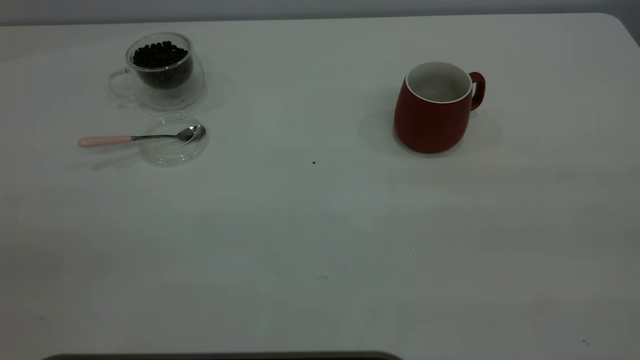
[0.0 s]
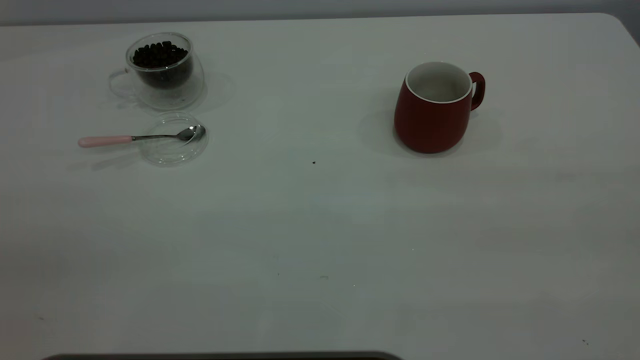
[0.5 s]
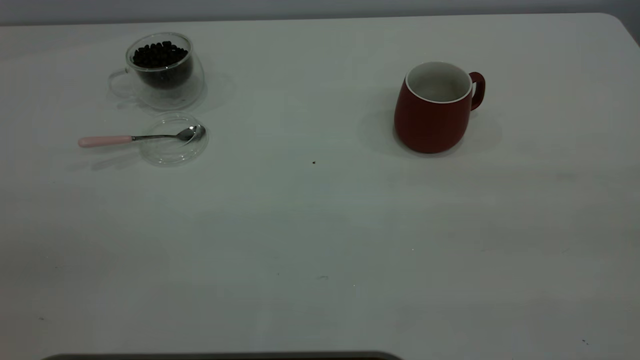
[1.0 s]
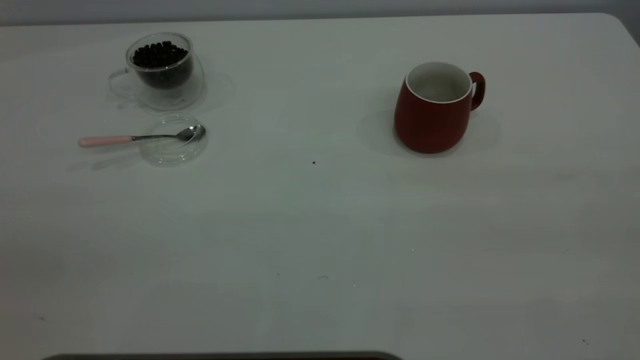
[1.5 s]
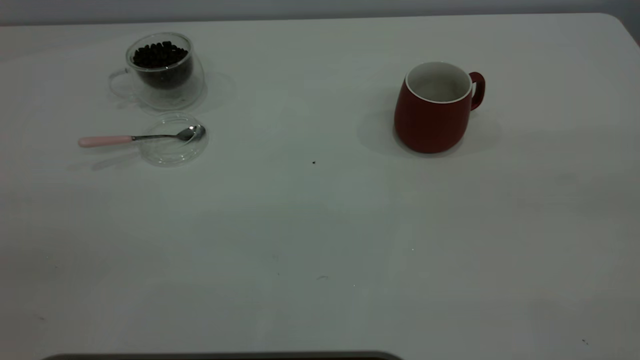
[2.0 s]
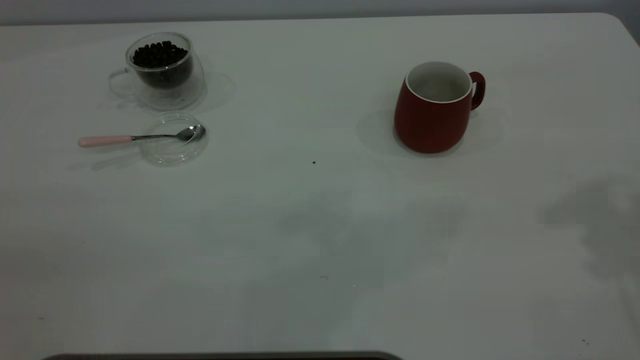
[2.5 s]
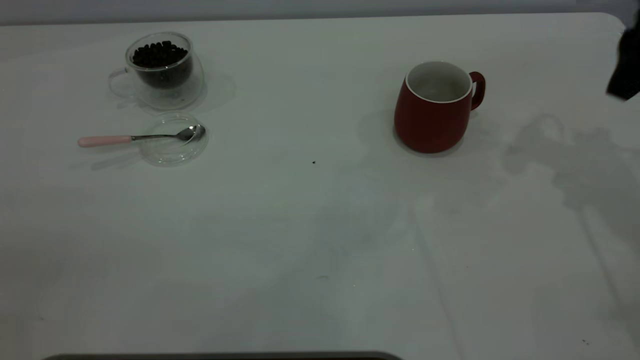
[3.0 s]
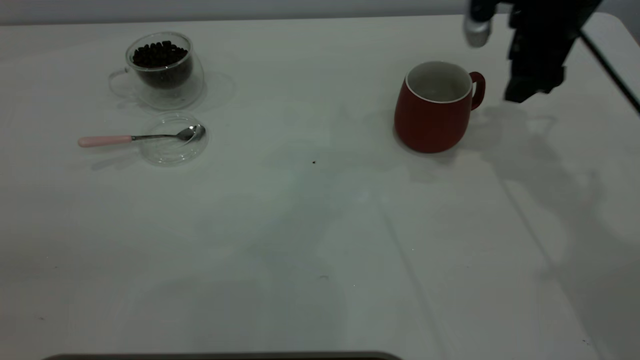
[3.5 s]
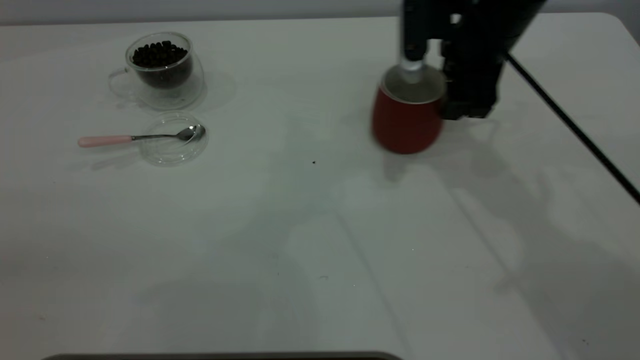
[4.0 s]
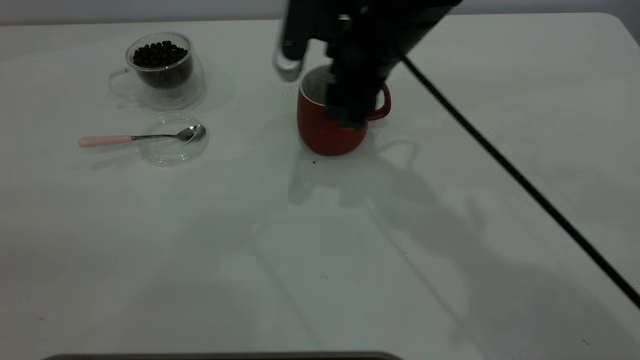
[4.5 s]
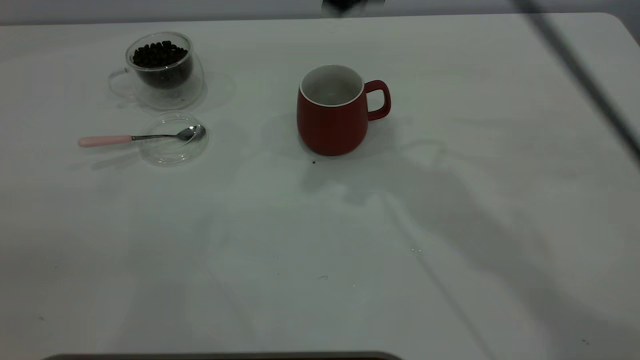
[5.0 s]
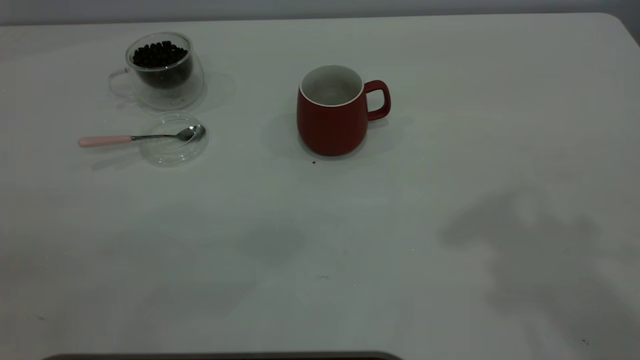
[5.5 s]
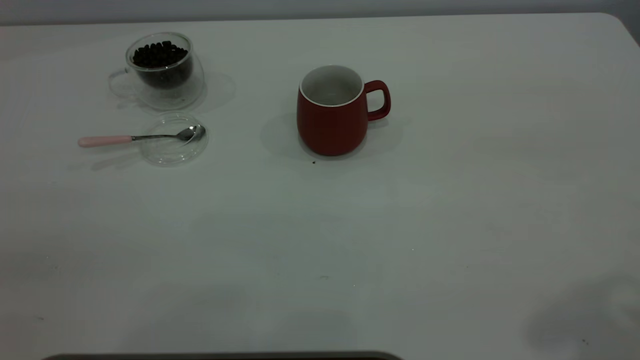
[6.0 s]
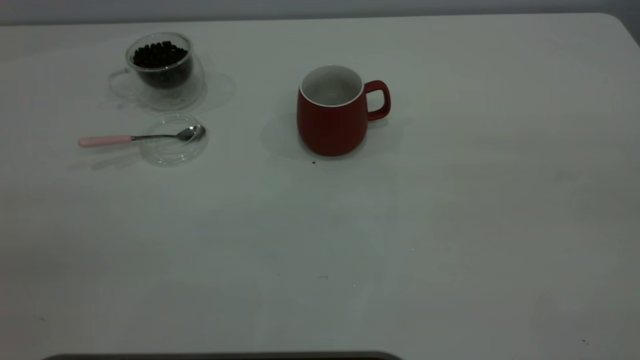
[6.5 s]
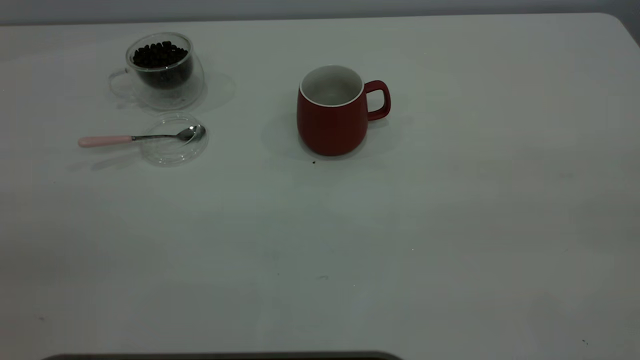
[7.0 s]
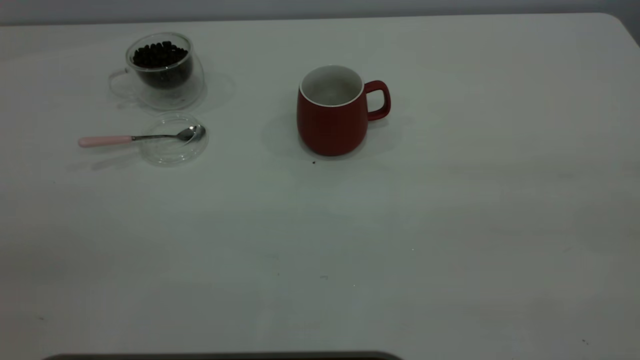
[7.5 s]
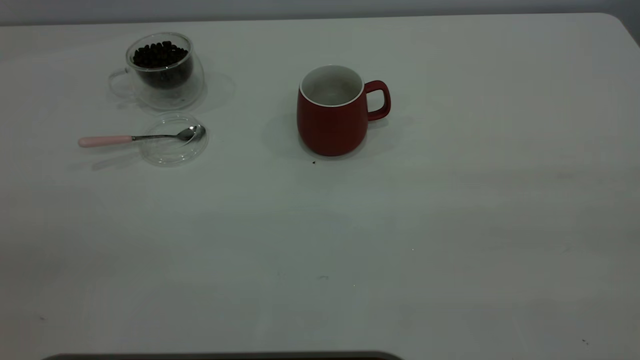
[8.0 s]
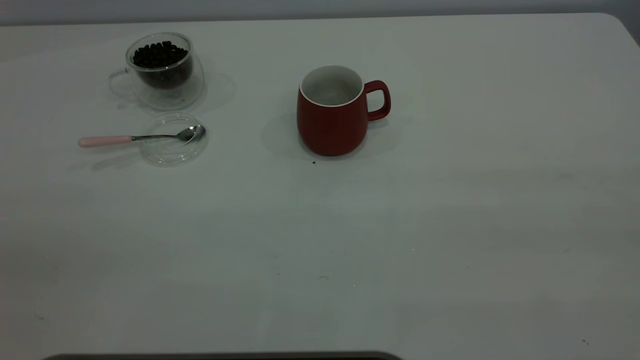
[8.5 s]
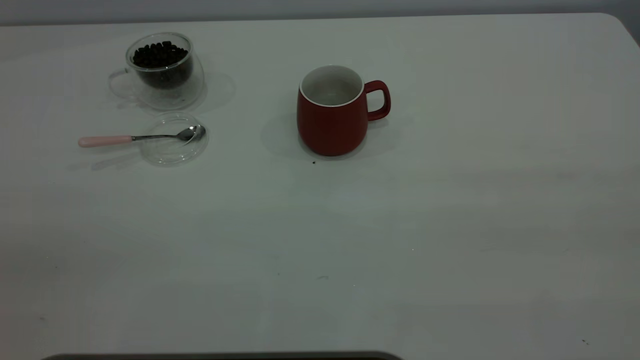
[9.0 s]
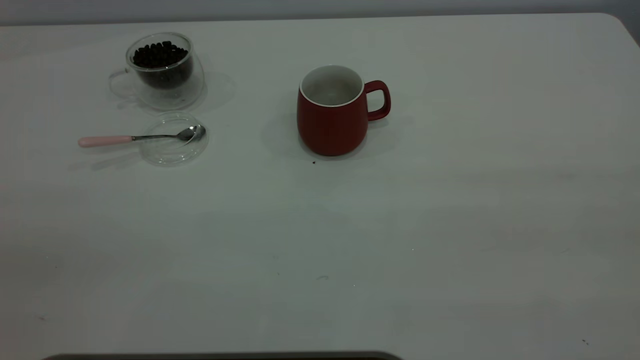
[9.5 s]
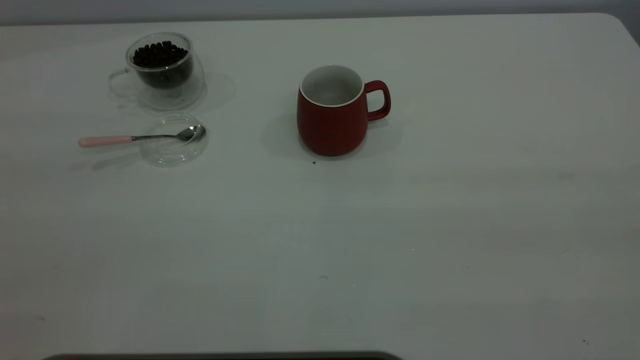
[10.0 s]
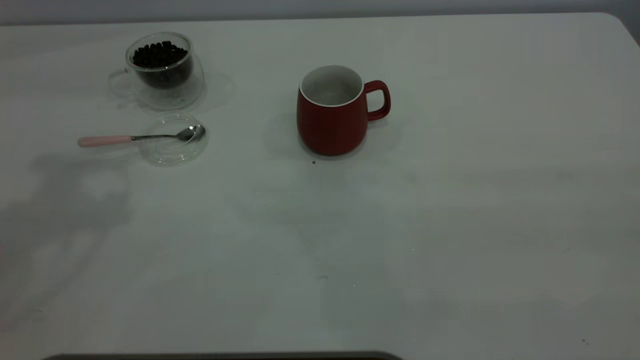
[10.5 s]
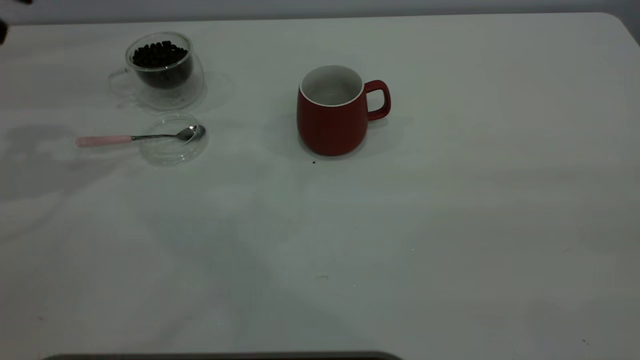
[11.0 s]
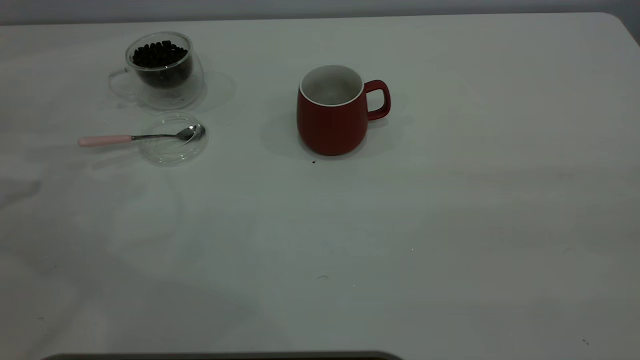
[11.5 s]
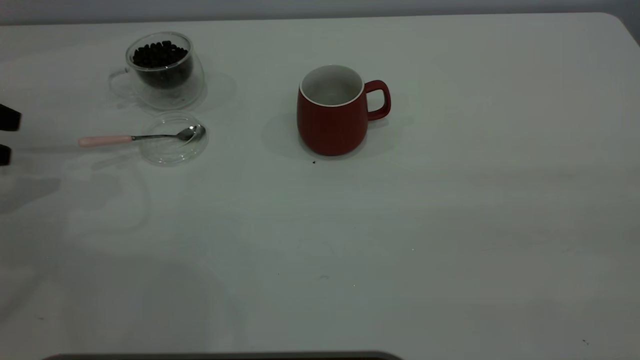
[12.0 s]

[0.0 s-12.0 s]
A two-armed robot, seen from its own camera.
Task of the whole recording: the right gripper place the red cup in the center of the table, the left gripper take the pink spoon from the cup lid and scoop out the coffee beans from the coffee cup and put them into the red cup, the left gripper put the spoon back into the cup lid.
Step, 0.0 to 4.5 s: Move the cup to the center of view.
2.0 to 4.0 s: The right gripper shifts some 50 cm forward, downward and to the left.
4.0 to 6.0 s: The right gripper is displaced upward and backward by roughly 40 cm.
10.0 to 12.0 s: The left gripper travels downward, forward and to the left by approximately 40 cm.

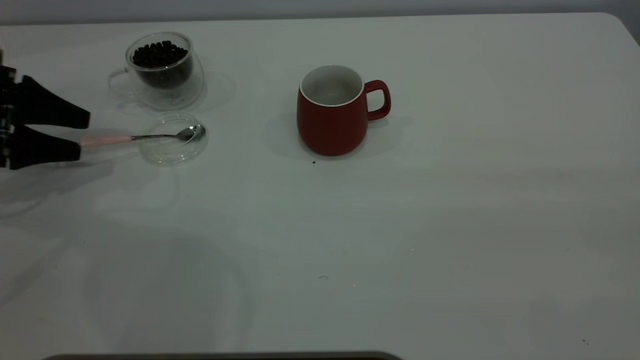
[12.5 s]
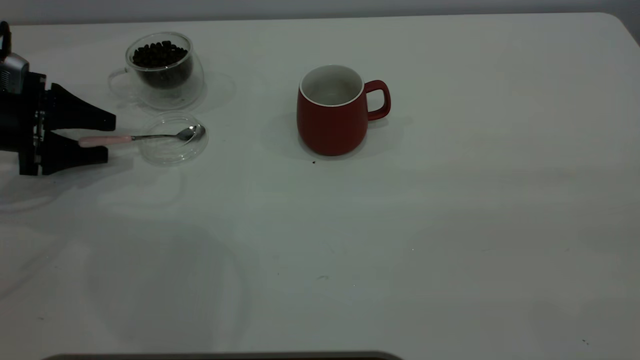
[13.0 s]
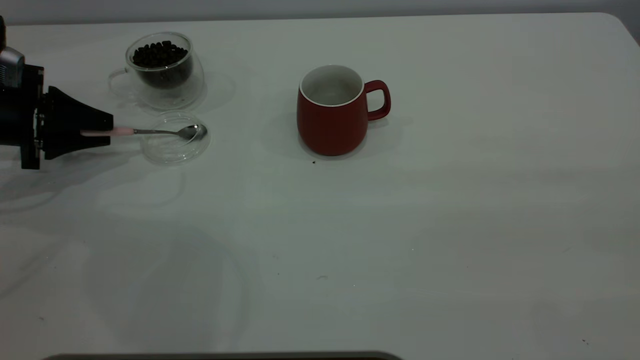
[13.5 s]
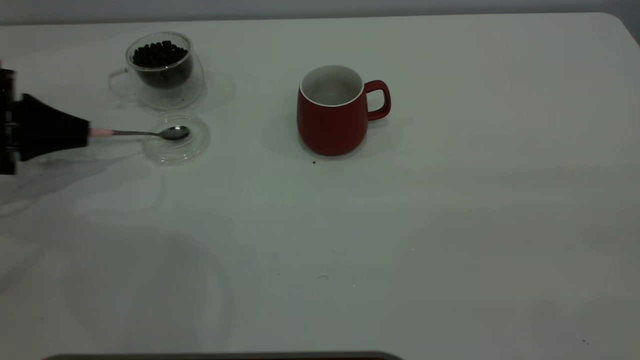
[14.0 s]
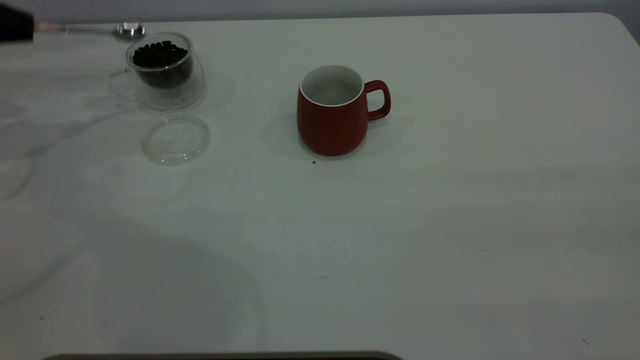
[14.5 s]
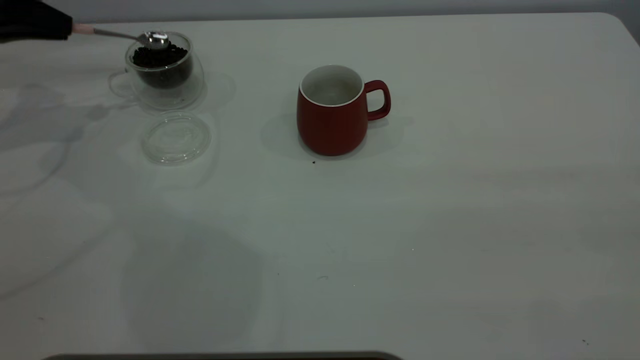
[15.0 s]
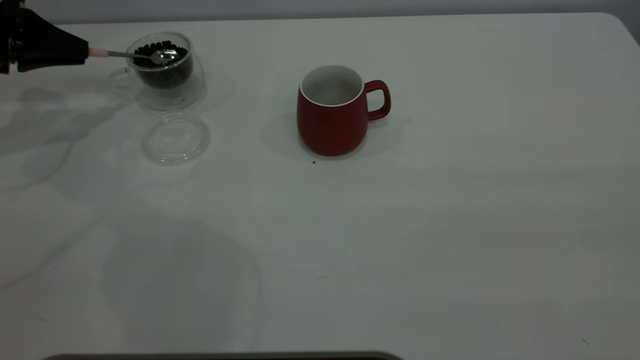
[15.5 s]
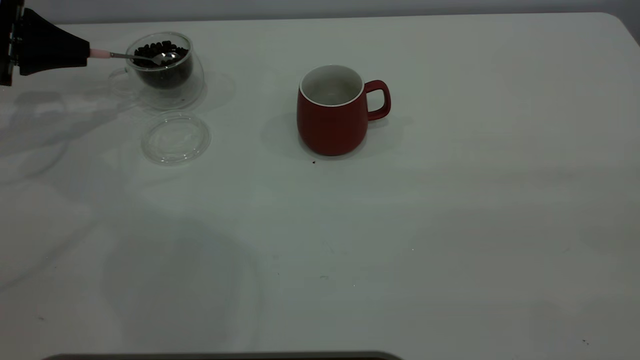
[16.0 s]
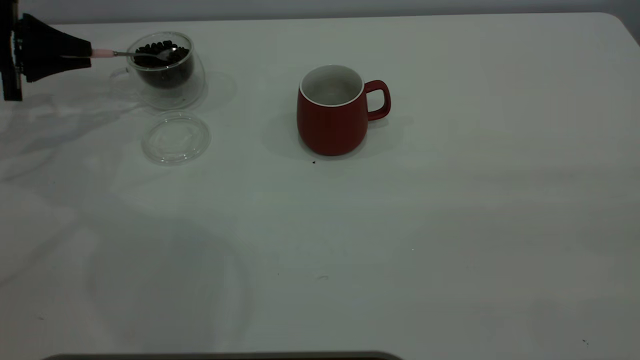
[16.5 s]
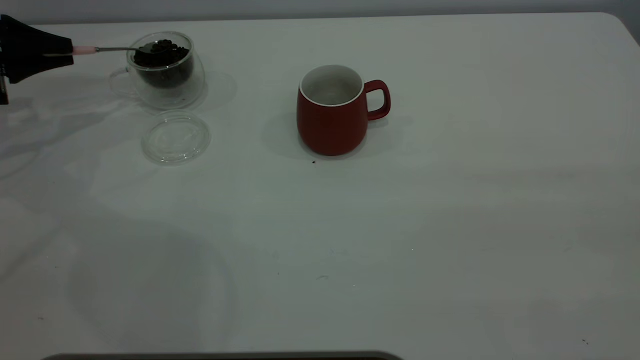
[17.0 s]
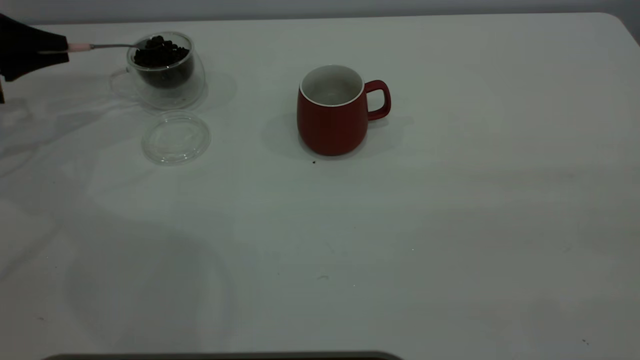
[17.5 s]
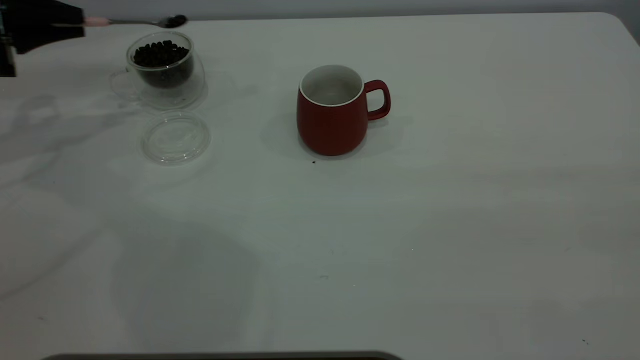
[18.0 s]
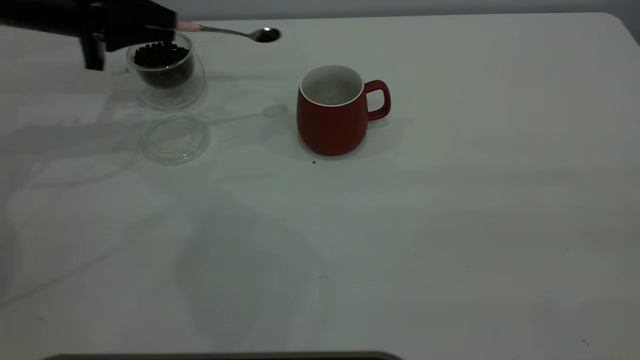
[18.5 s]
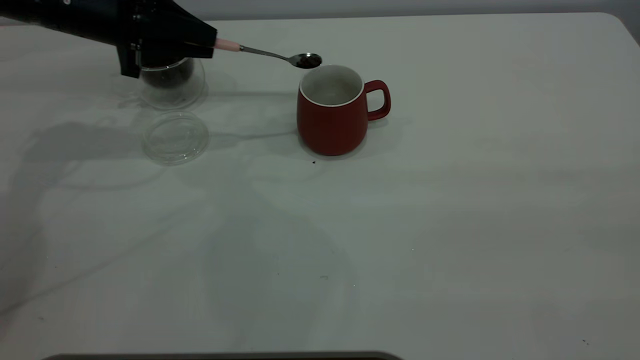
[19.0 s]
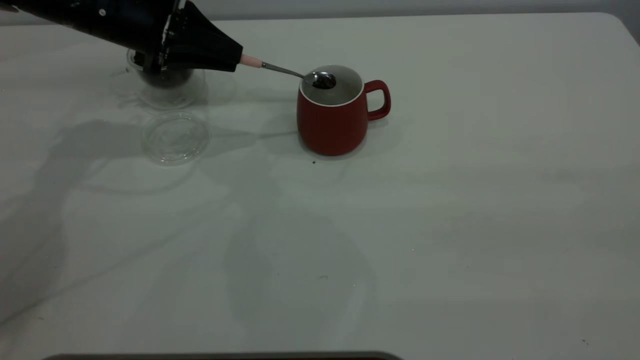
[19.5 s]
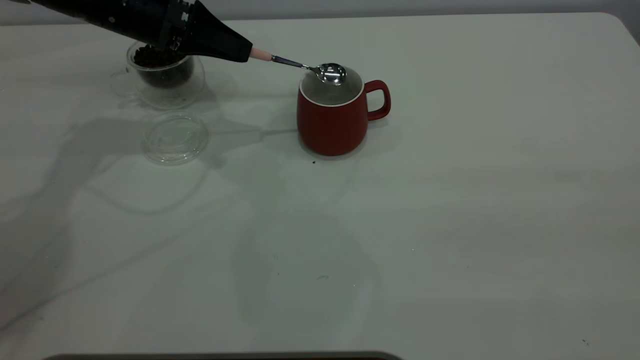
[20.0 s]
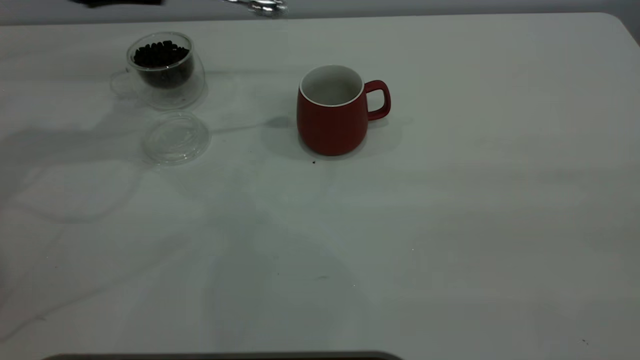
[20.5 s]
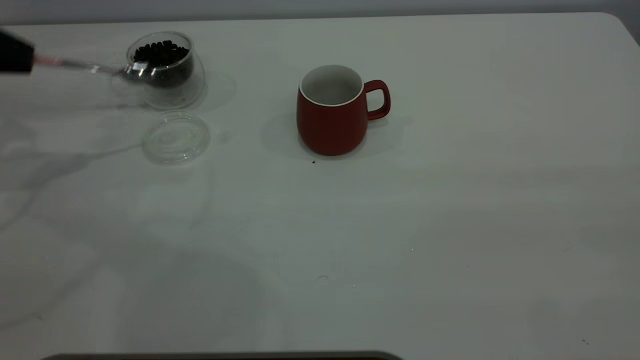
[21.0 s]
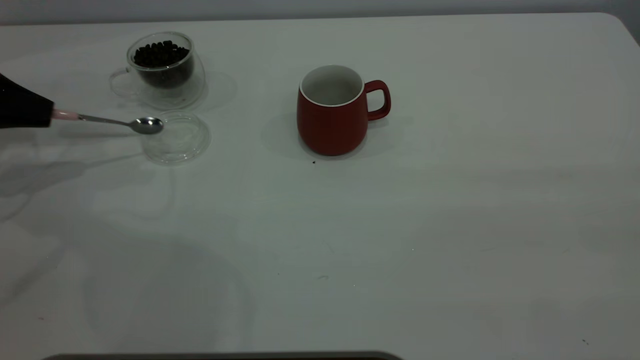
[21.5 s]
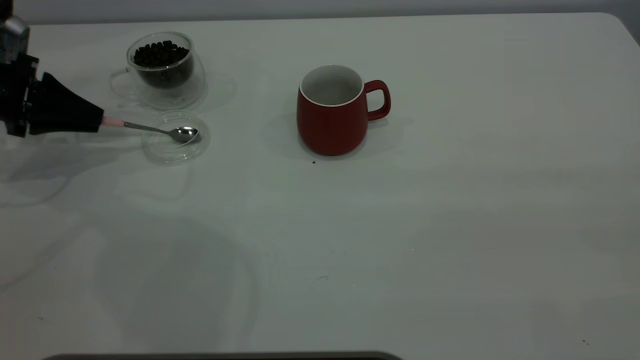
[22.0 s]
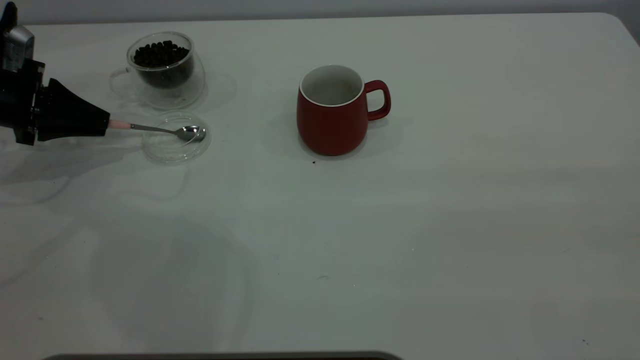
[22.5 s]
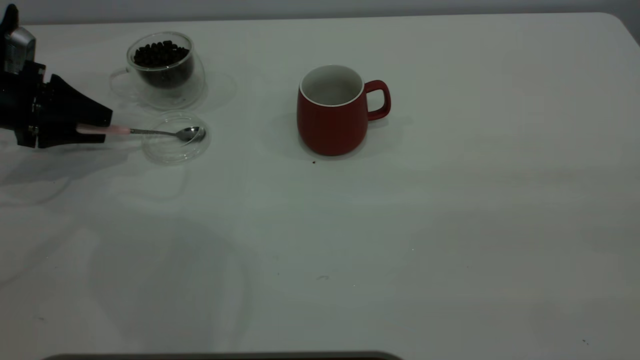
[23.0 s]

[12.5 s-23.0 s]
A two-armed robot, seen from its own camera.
Task of the whole recording: the right gripper place the red cup in the center of the table, the left gripper take the pink spoon from the cup lid and scoop out the coffee beans from the coffee cup and put them into the red cup, the left gripper put the spoon back into the cup lid.
Step, 14.5 to 20.0 s: Scoop a spoonful of beans into the cup.
12.5 to 14.5 s: The left gripper heads upward and forward, covering about 10 cm, and closes up.
14.5 to 16.5 s: The left gripper goes some 5 cm downward.
16.5 to 19.0 s: The left gripper goes roughly 15 cm to the right.
19.0 to 21.0 s: The left gripper goes approximately 20 cm to the left.
21.0 to 23.0 s: The left gripper shifts approximately 10 cm downward, and opens.
